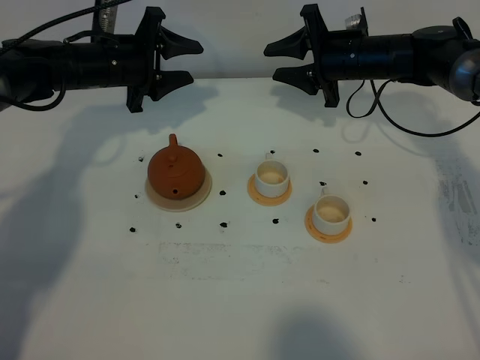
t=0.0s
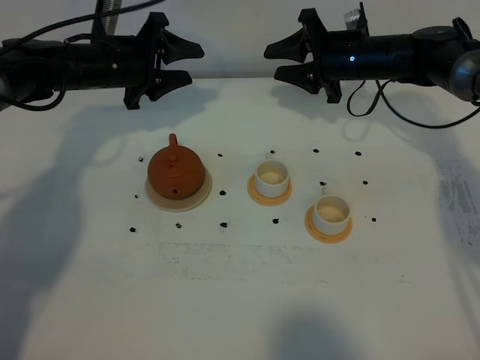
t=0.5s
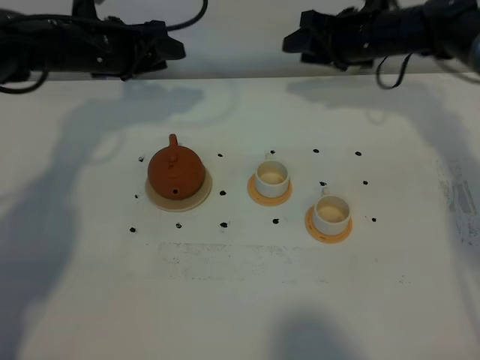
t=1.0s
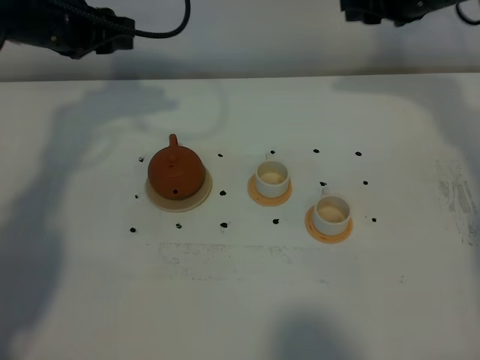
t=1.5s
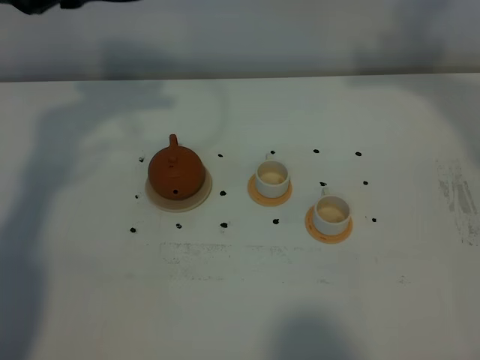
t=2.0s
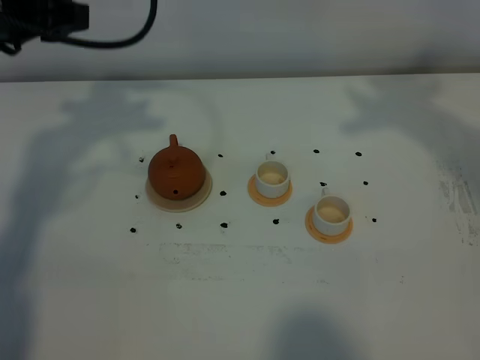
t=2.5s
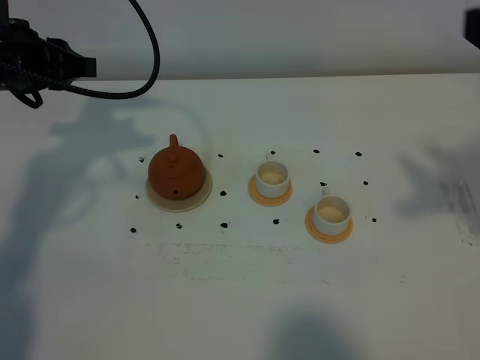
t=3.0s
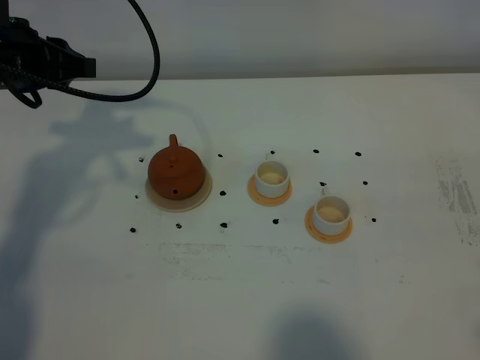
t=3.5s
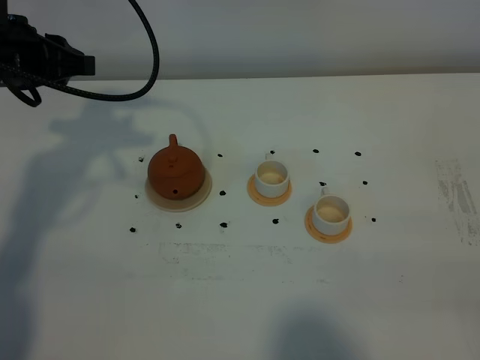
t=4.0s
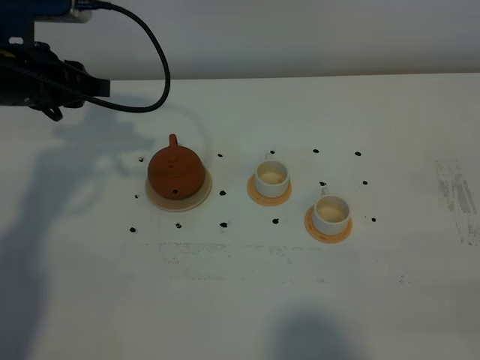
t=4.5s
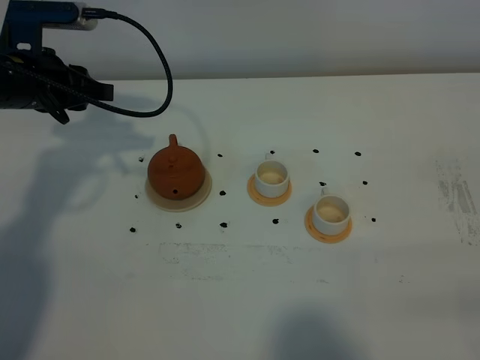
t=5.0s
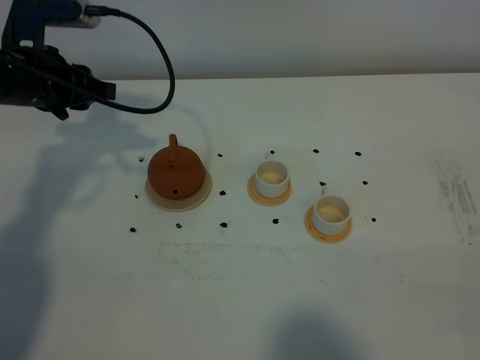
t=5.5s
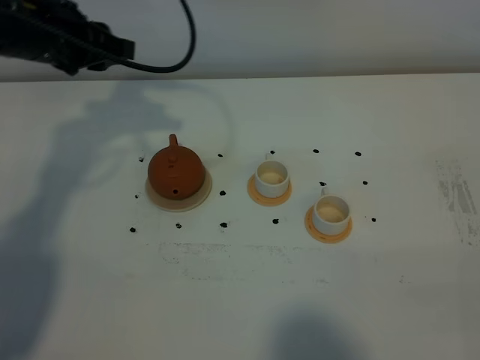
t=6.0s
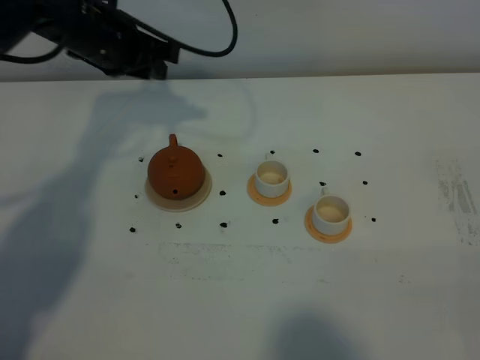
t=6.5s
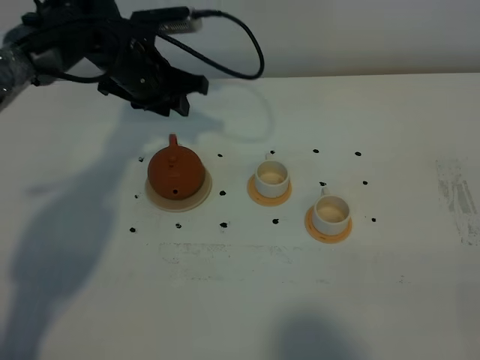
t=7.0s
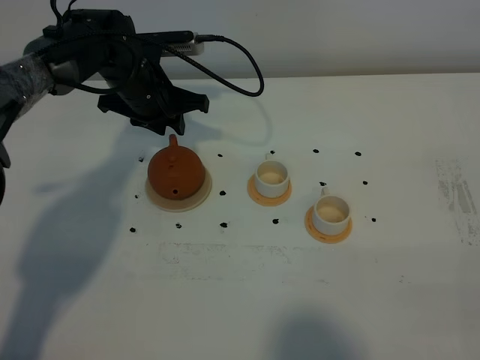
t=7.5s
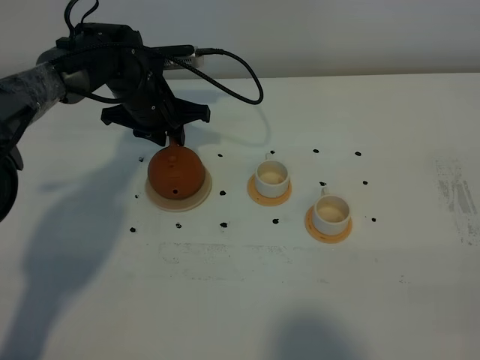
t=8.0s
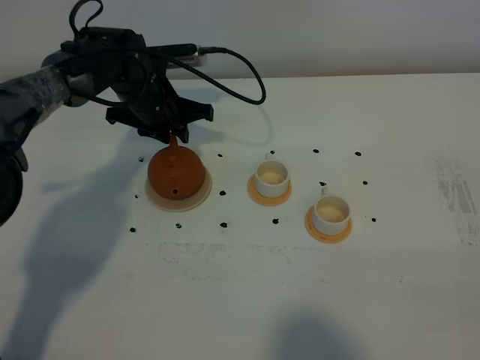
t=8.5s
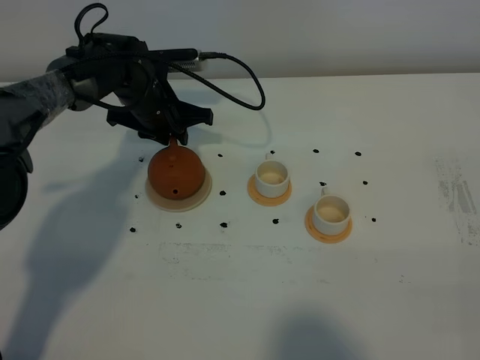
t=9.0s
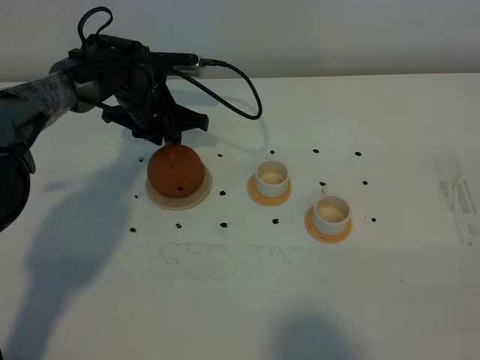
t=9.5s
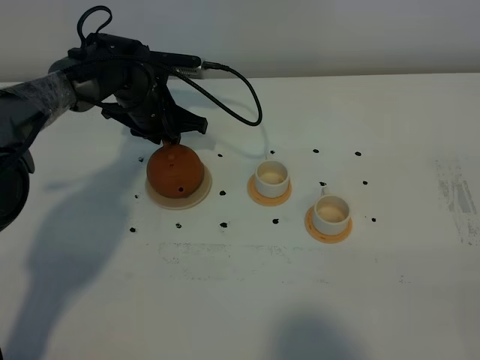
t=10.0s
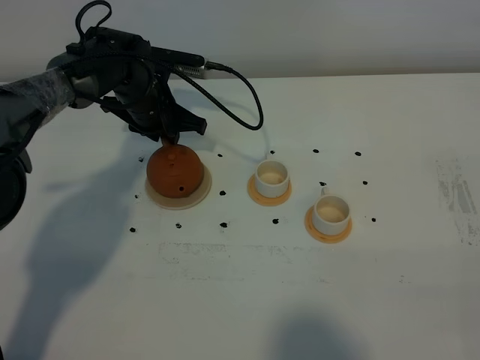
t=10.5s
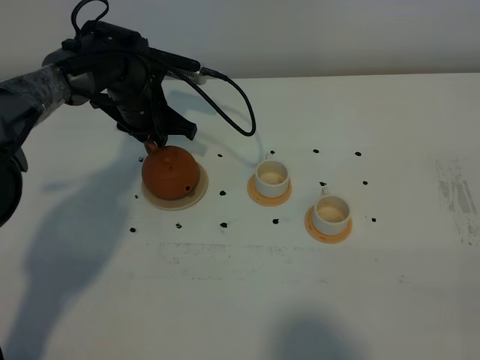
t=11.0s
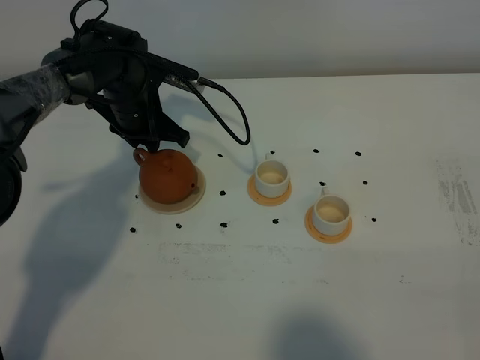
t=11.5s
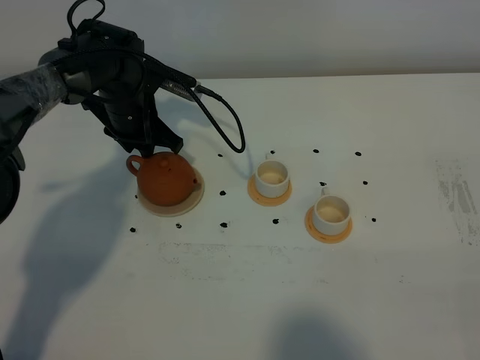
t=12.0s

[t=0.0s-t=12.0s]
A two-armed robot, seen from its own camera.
Task of the whole recording: grasp the brown teapot and pour the tea into the two white teacups one by one, put the brown teapot back in its original place.
t=0.0s to t=2.0s: Both grippers move upward and backward, some 25 cm.
t=2.0s to t=4.0s: The left gripper shifts about 10 cm downward, while the right gripper travels backward by roughly 40 cm.
t=4.0s to t=6.0s: The left gripper shifts some 5 cm forward.
t=6.0s to t=8.0s: The left gripper is displaced downward, to the right and forward by roughly 15 cm.
t=8.0s to t=10.0s: There are only small adjustments of the grippers.
t=10.0s to t=12.0s: The grippers make only small movements.

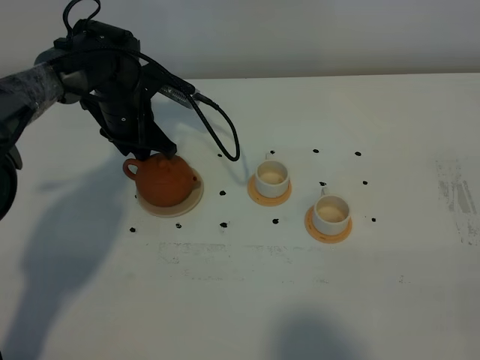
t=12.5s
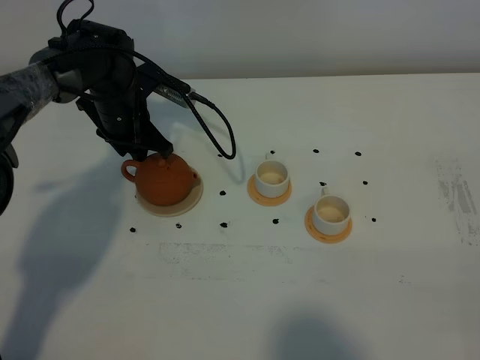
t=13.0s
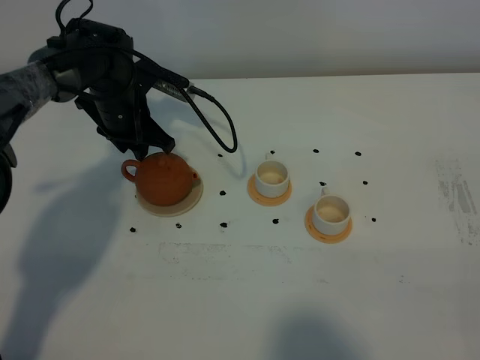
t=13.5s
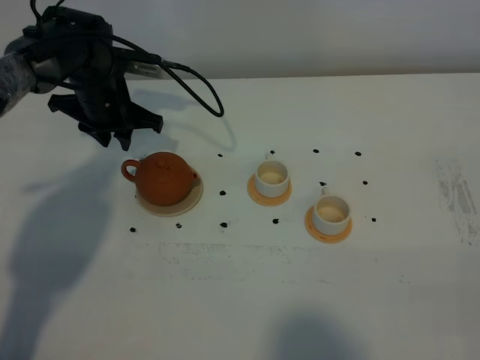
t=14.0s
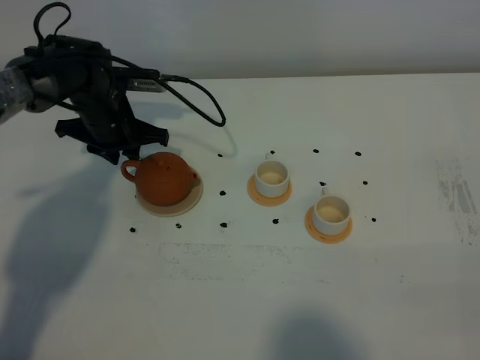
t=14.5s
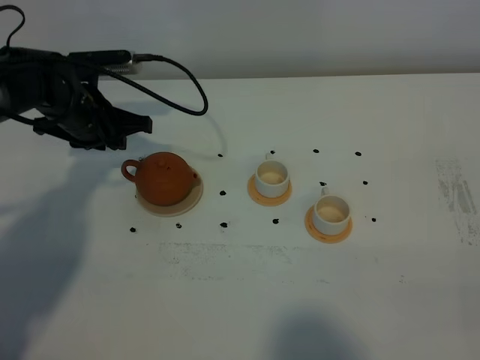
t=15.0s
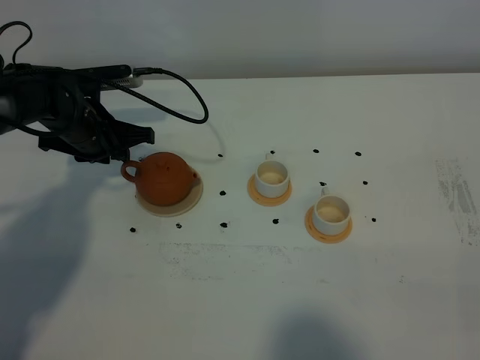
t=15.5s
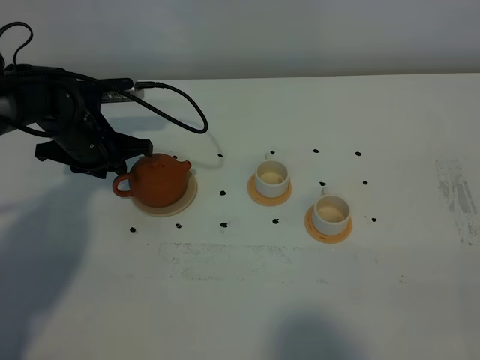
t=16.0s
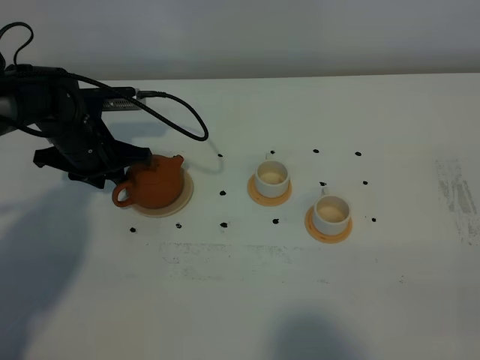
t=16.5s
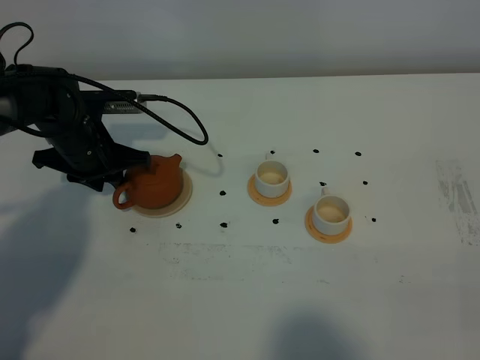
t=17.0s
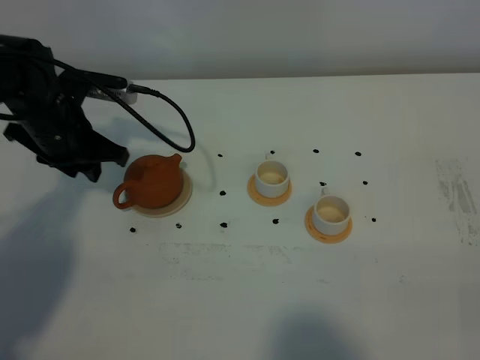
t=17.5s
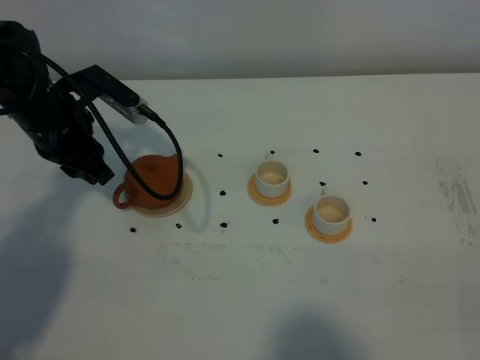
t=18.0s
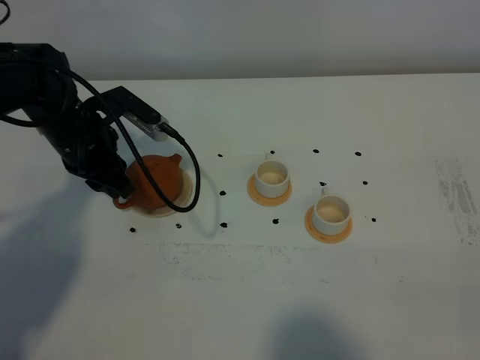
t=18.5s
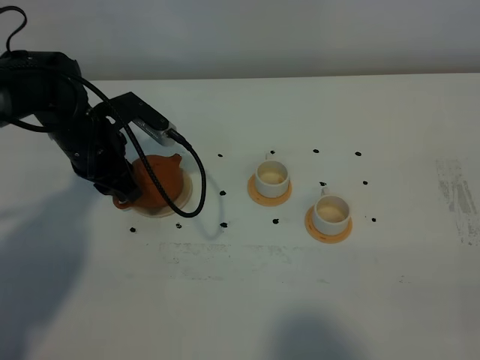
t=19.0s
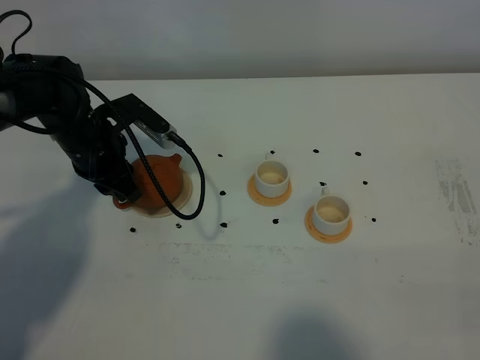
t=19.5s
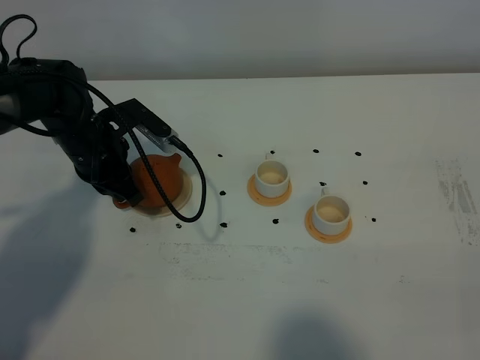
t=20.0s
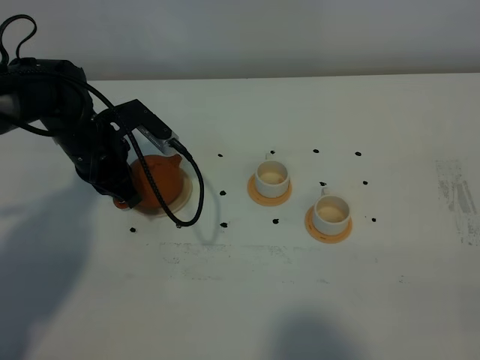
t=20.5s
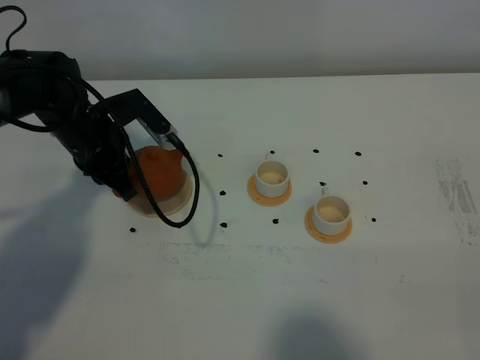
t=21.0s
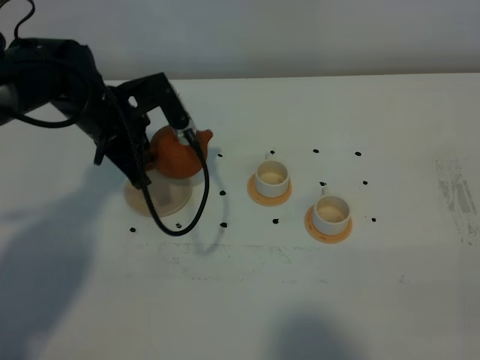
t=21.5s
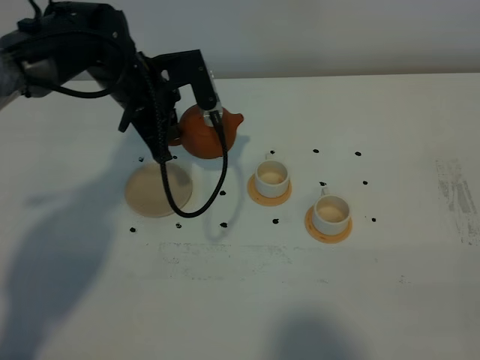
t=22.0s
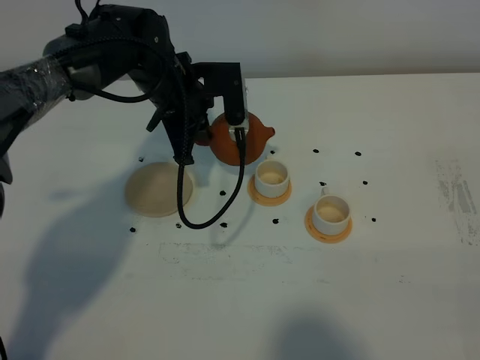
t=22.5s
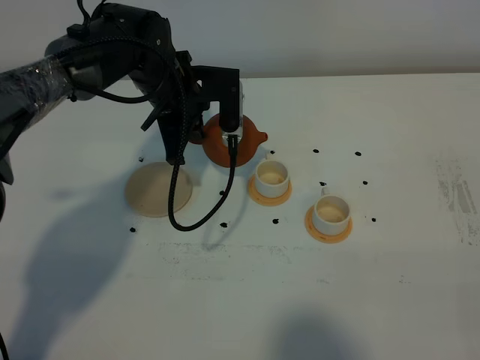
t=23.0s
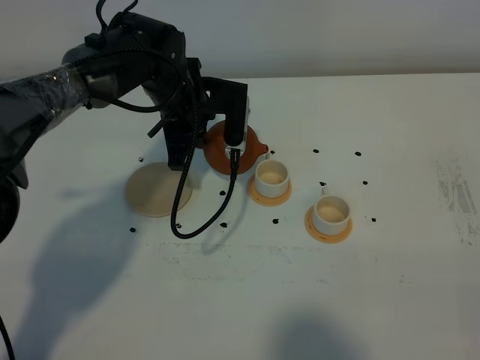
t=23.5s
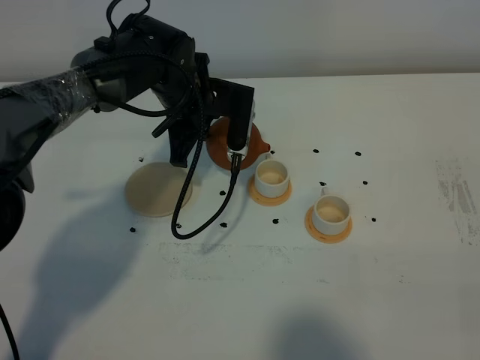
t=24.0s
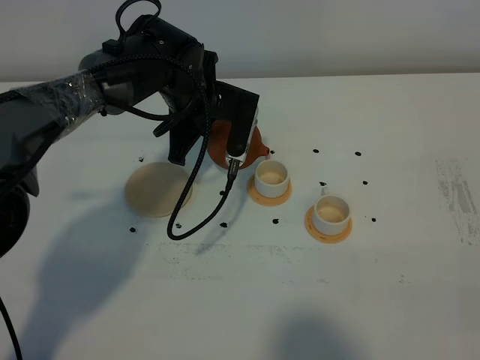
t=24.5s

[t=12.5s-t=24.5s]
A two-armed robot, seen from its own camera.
Task of the whole recording: grasp the brown teapot and pour the tea into the two white teacups one by one, put the brown teapot back in its original place.
Step, t=12.5s to t=21.0s: Pick up the teapot with the left gripper.
t=14.5s to t=16.5s: The left gripper moves roughly 5 cm.
t=18.5s to t=20.5s: The left gripper closes its fingers.
t=20.5s to t=22.5s: The left gripper shifts roughly 10 cm to the right and upward.

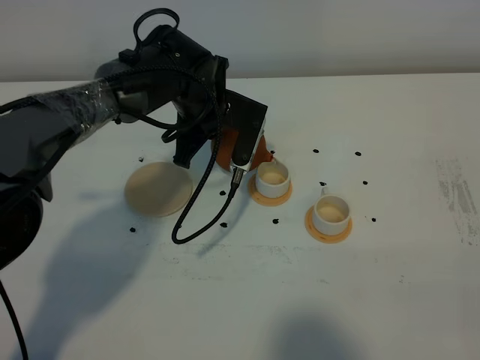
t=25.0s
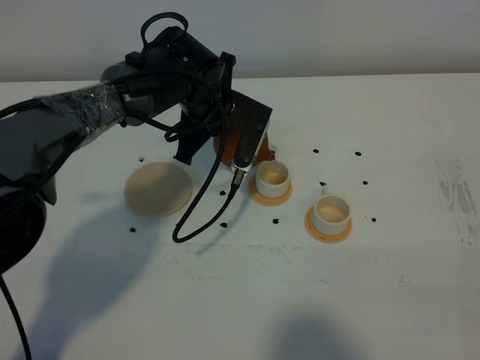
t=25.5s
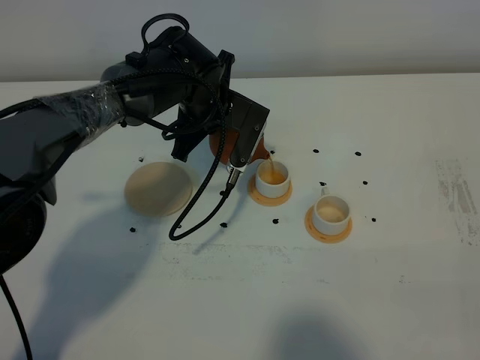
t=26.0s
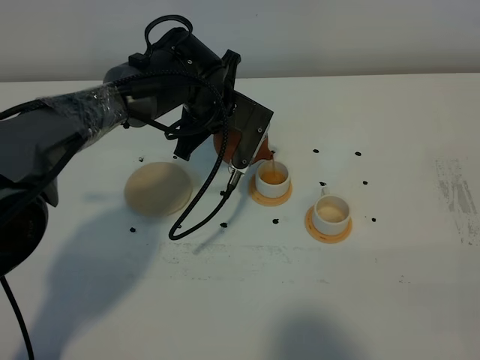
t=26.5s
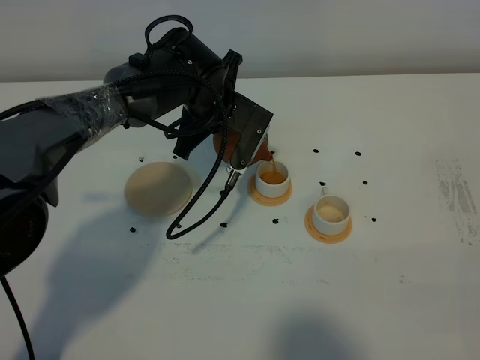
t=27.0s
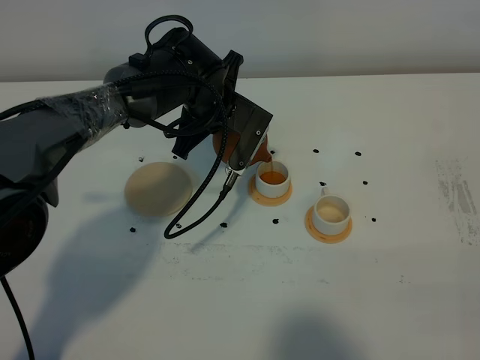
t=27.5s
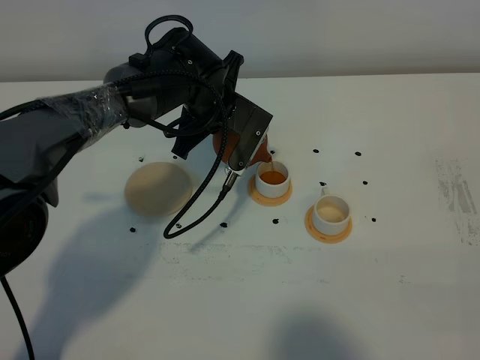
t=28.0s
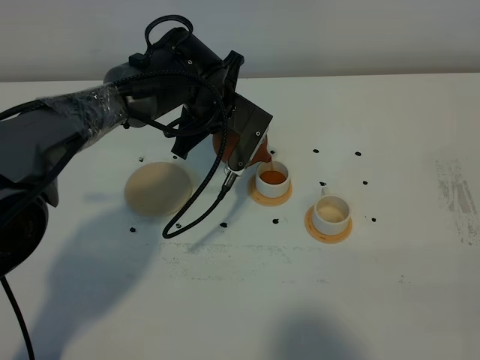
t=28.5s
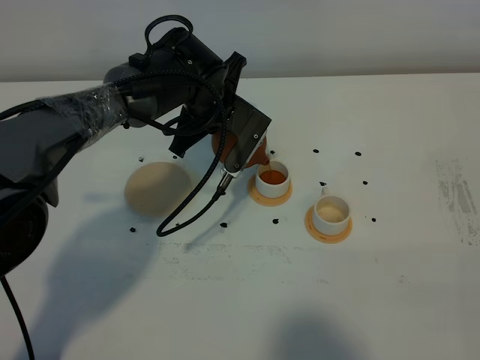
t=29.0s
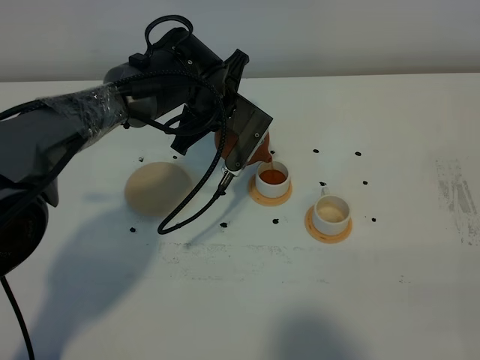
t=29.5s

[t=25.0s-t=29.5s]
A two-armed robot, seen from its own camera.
Task of the whole recording: grasp the brown teapot and pour the tea into the two white teacups one by one, put the brown teapot back in its original place.
t=25.0s to t=29.5s: The grippers move only a little.
